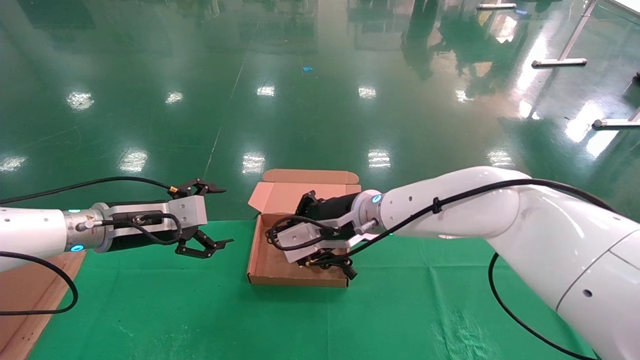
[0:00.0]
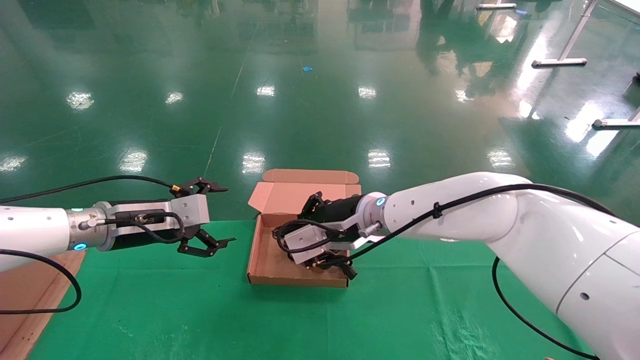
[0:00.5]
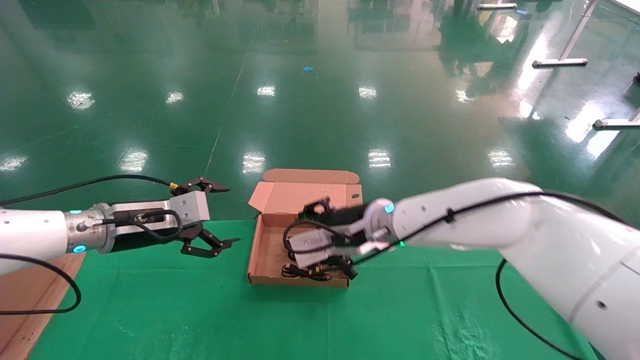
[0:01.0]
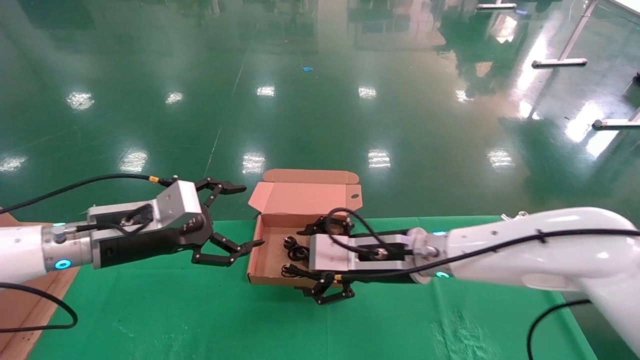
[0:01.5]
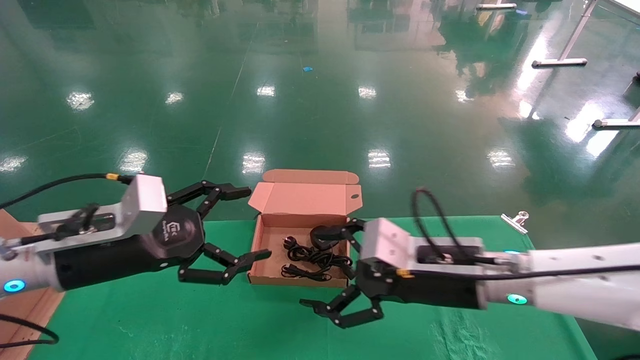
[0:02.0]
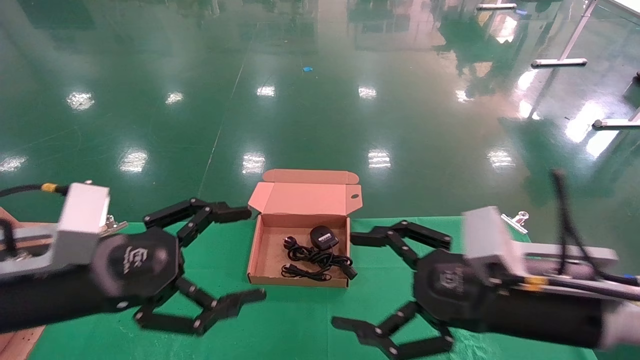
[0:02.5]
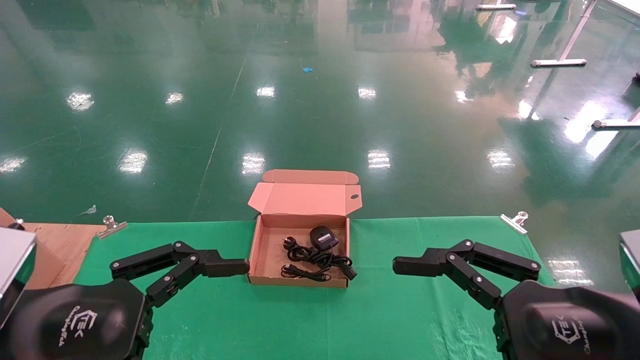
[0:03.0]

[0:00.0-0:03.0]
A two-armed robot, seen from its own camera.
Step, 0:00.0 to 0:02.0: Place the mouse and power cord into the box.
0:00.0 to 0:01.5: The right gripper travels to the right and backward by about 10 cm, and opens, while the left gripper heads backward, covering approximately 5 cm.
0:01.5 to 0:03.0: The right gripper shifts some 25 cm backward and to the right. Meanwhile the left gripper heads backward, covering some 20 cm.
